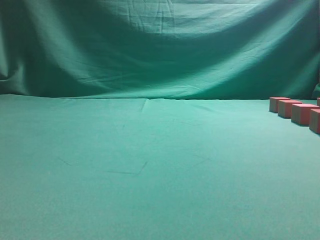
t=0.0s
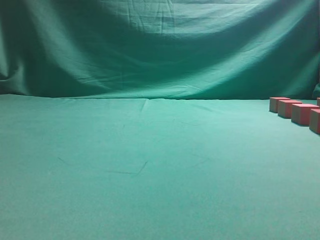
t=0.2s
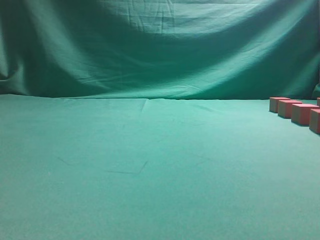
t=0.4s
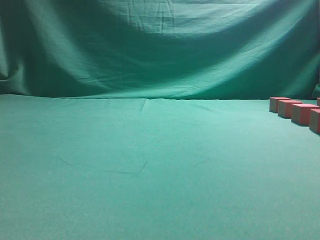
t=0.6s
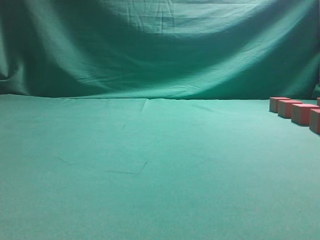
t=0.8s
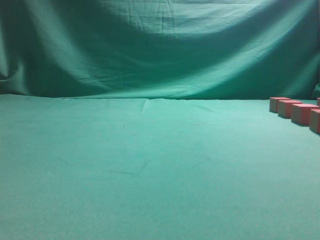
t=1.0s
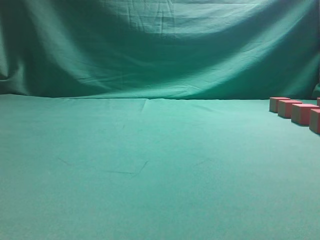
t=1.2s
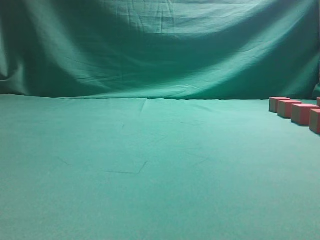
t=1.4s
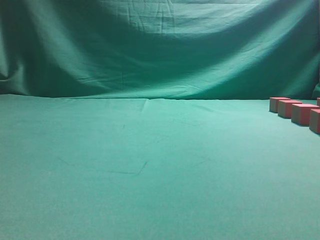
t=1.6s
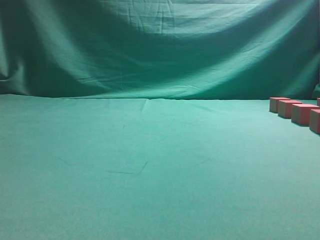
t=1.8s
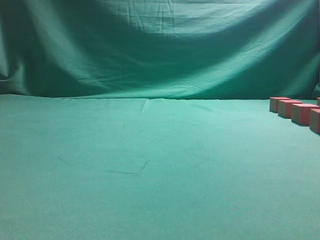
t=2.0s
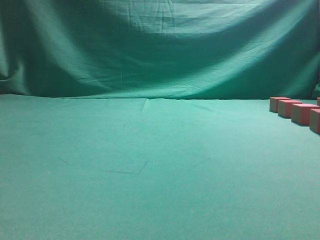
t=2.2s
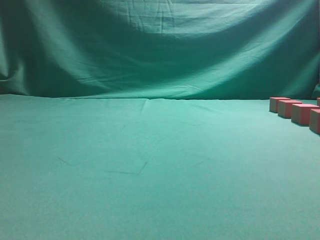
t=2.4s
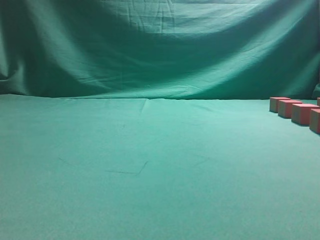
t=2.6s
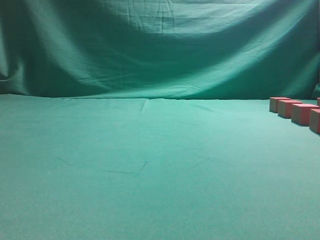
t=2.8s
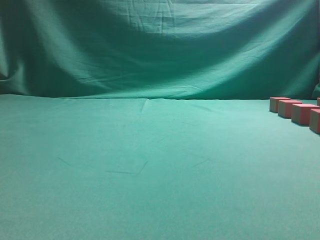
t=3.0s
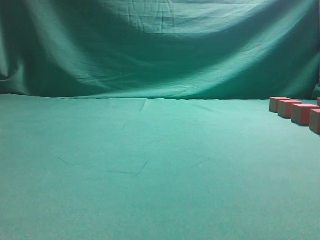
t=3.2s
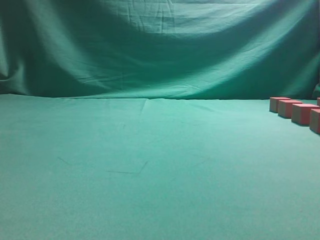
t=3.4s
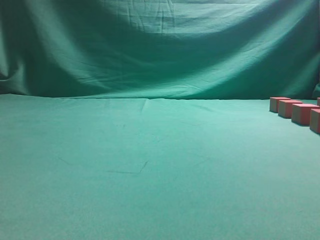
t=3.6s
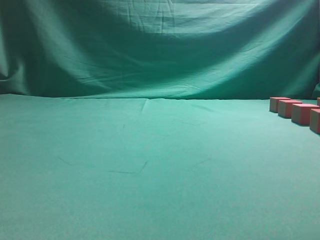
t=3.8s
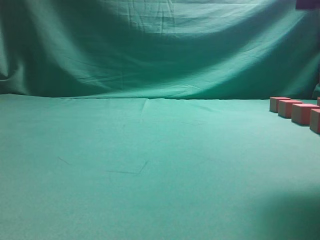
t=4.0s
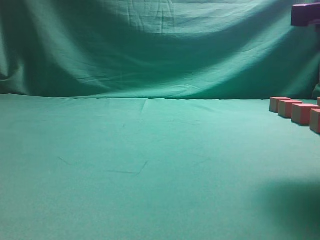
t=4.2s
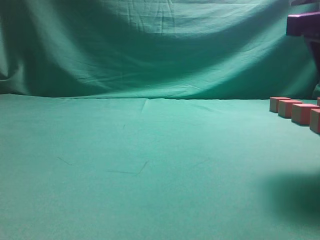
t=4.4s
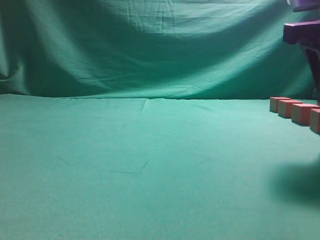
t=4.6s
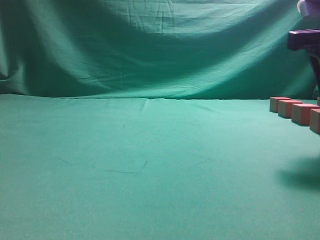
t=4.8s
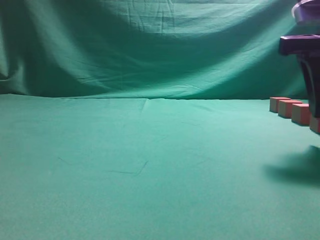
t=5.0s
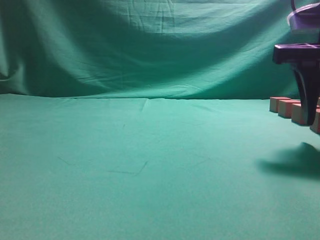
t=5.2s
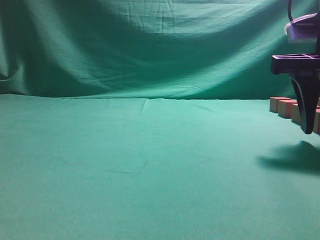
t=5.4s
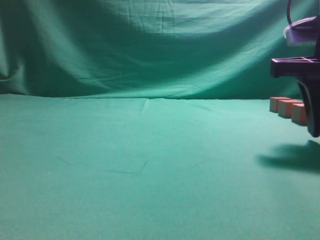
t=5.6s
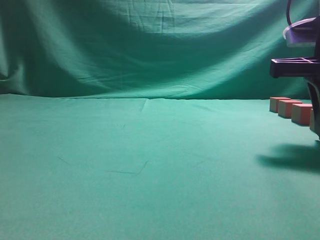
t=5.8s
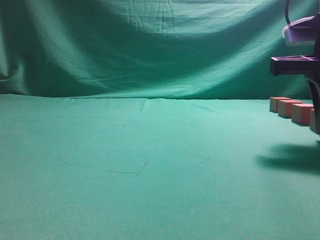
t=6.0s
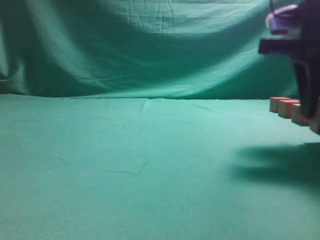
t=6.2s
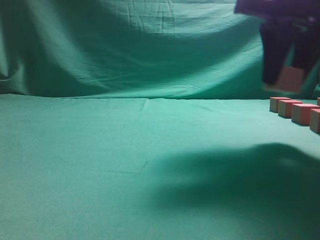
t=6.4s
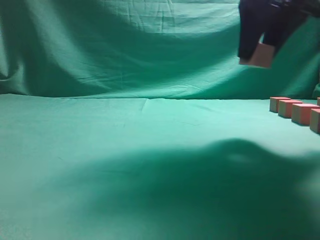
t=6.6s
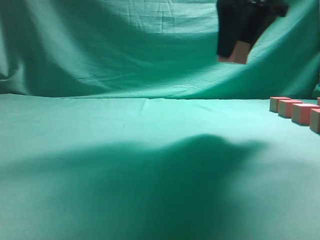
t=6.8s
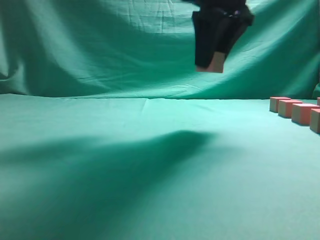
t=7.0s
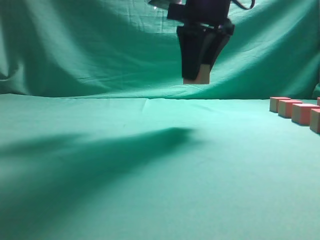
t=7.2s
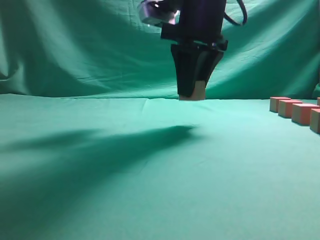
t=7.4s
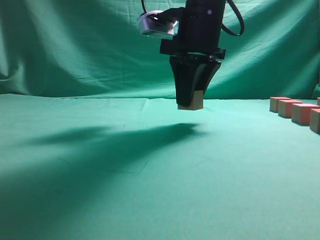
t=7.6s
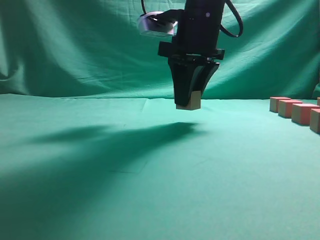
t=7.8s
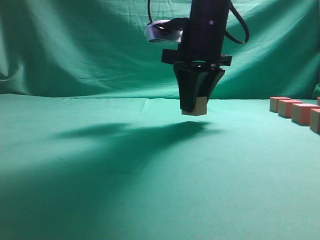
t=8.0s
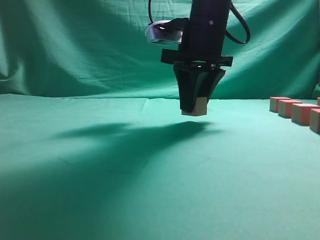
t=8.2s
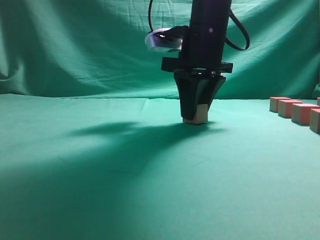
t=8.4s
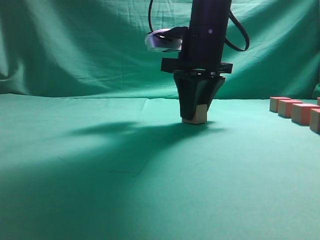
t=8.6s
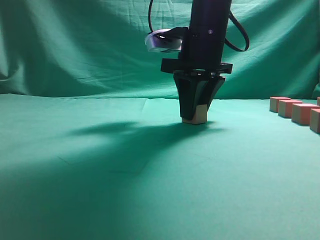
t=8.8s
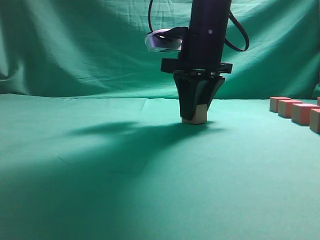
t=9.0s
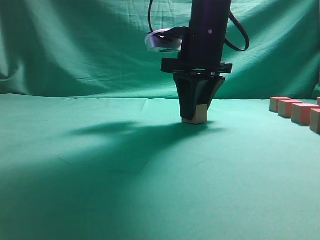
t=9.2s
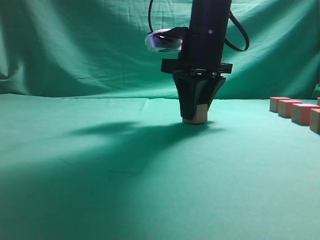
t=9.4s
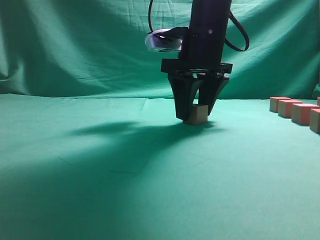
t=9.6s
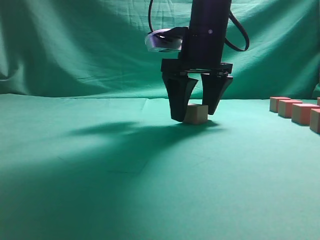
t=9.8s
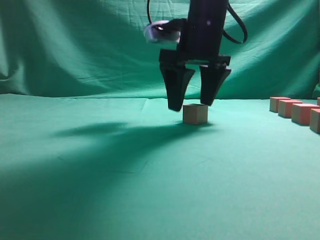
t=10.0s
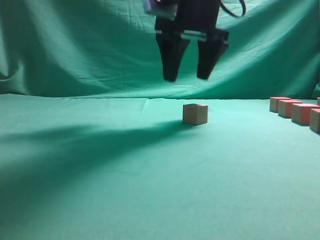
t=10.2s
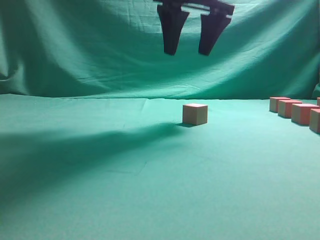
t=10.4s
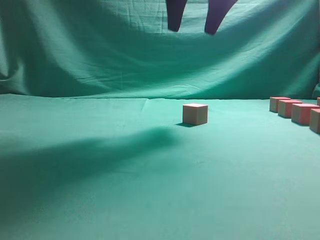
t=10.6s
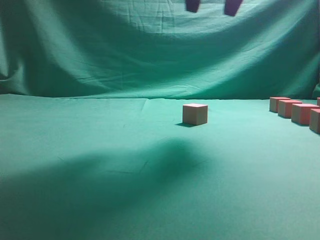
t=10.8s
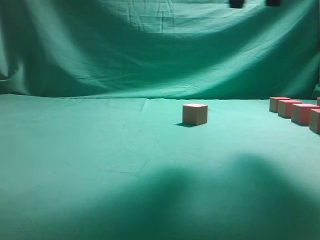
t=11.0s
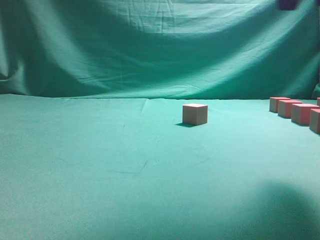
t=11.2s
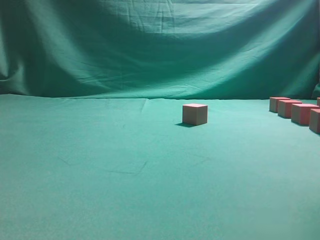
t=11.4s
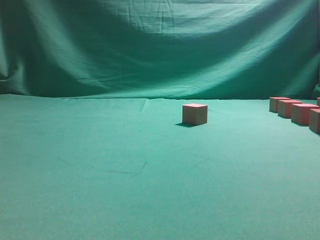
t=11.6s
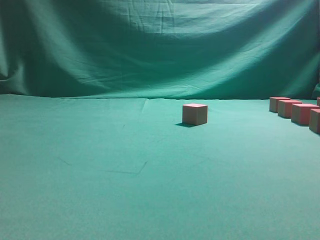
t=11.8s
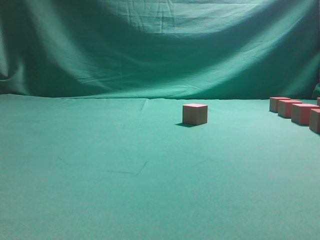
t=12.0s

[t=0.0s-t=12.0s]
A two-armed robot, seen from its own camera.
Task of the whole recording: pick up the multiple cubes in two columns one by one and place them in another position on the table.
Step, t=0.0s to t=6.0s: Pick up the block on the table.
Step, t=6.2s to t=10.4s: Place the block at the correct position to assemble the letter S.
t=3.0s to t=4.4s: The right gripper is displaced forward, downward and to the left by approximately 15 cm, and opens its fingers.
t=4.4s to t=6.0s: The right gripper shifts by some 5 cm, and closes its fingers.
t=6.0s to t=7.6s: The right gripper heads to the left and forward, covering some 20 cm.
t=7.6s to t=9.0s: The grippers move only a little.
t=9.0s to t=10.4s: The right gripper is displaced upward by some 10 cm, and opens.
t=10.4s to t=12.0s: The right gripper goes some 30 cm to the right and backward.

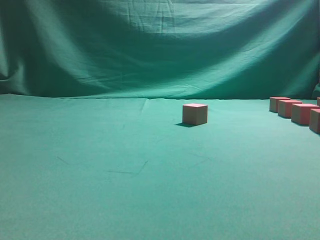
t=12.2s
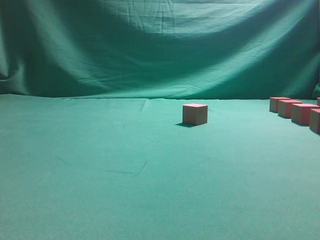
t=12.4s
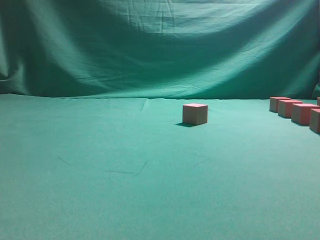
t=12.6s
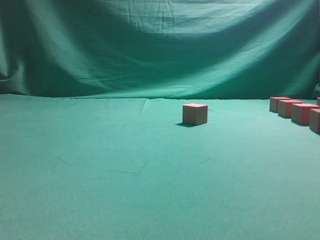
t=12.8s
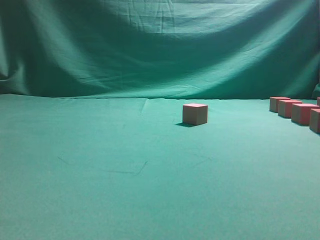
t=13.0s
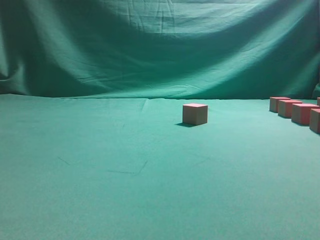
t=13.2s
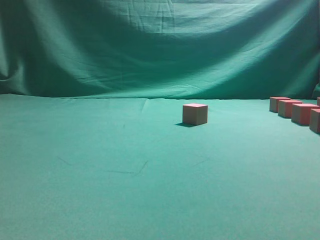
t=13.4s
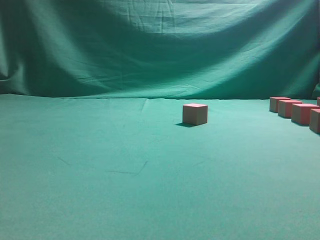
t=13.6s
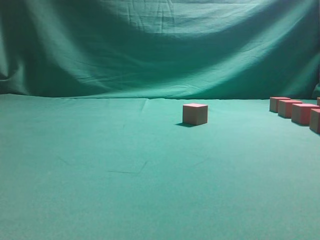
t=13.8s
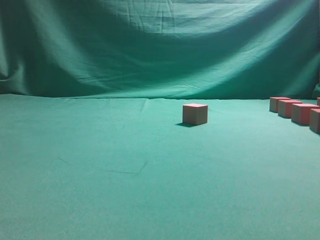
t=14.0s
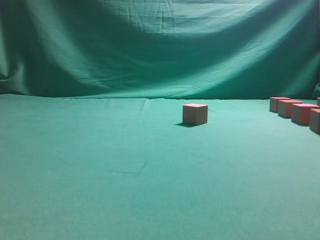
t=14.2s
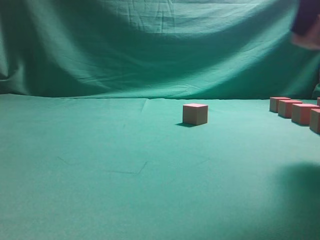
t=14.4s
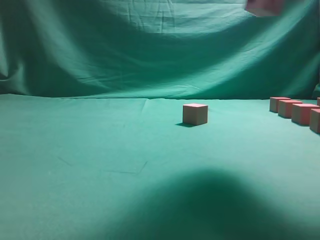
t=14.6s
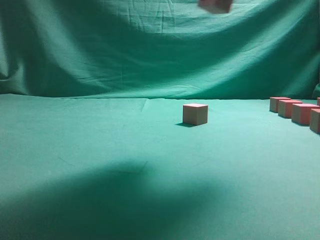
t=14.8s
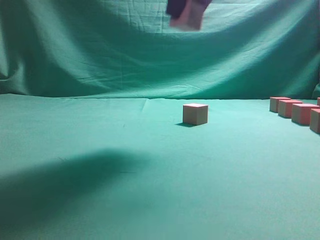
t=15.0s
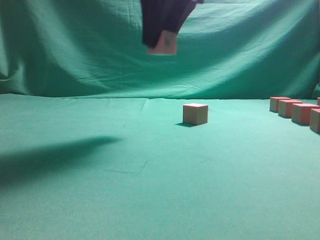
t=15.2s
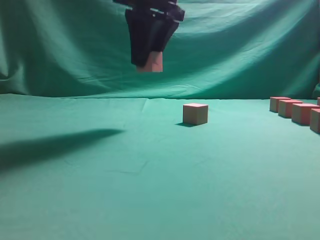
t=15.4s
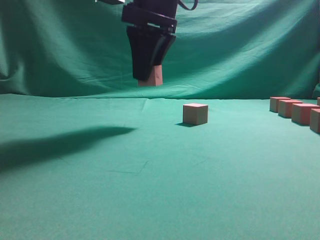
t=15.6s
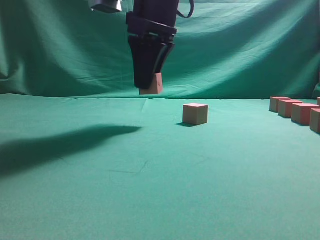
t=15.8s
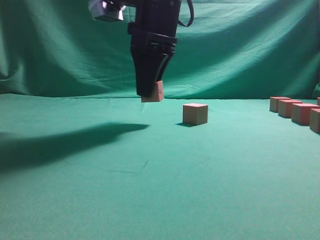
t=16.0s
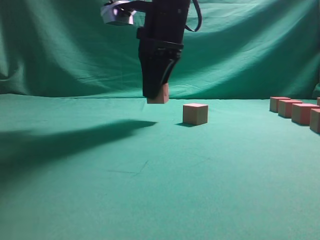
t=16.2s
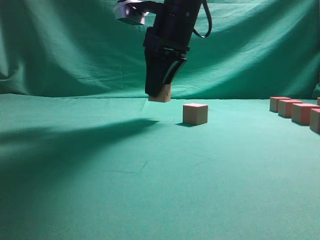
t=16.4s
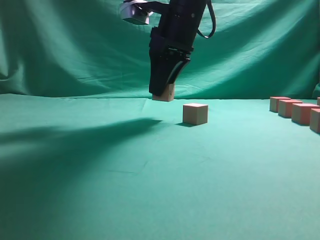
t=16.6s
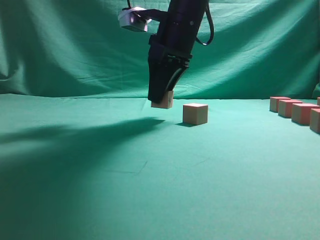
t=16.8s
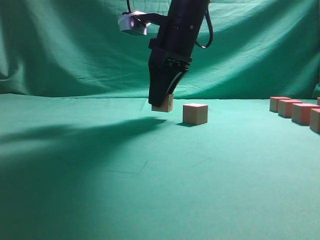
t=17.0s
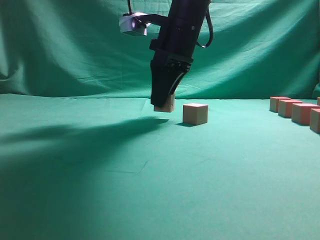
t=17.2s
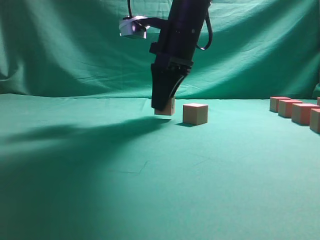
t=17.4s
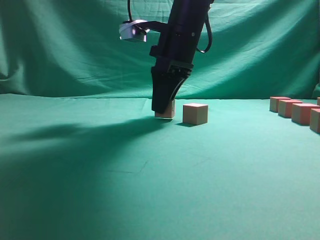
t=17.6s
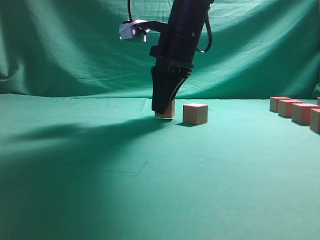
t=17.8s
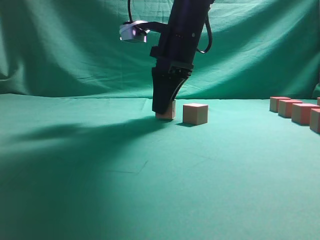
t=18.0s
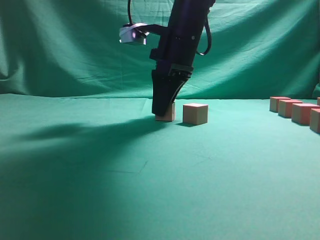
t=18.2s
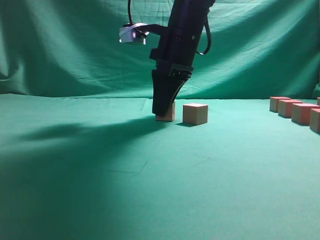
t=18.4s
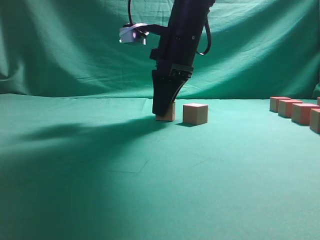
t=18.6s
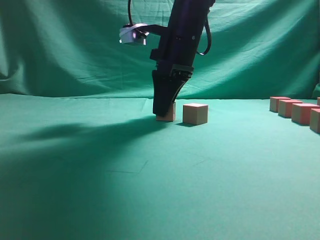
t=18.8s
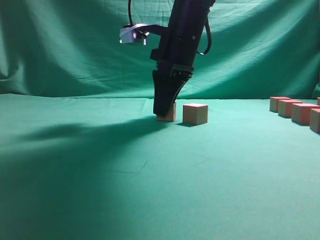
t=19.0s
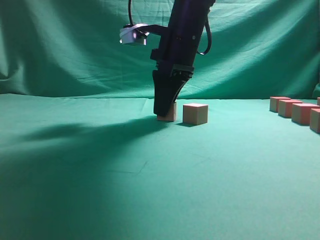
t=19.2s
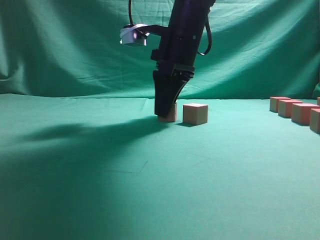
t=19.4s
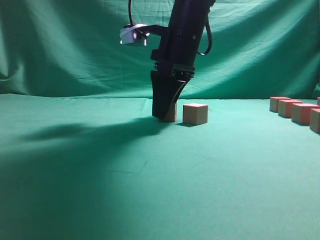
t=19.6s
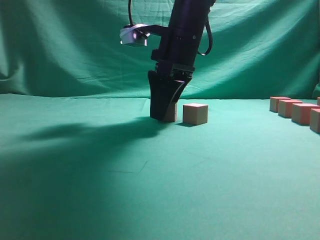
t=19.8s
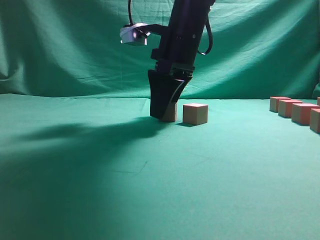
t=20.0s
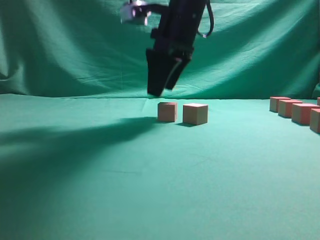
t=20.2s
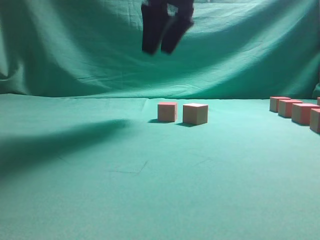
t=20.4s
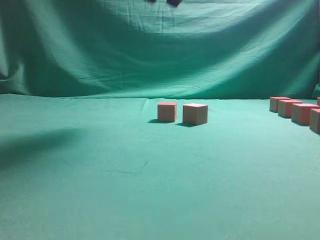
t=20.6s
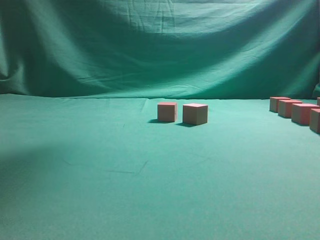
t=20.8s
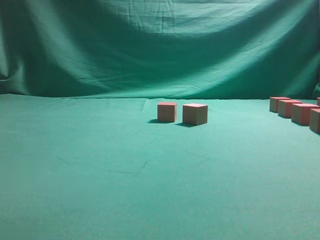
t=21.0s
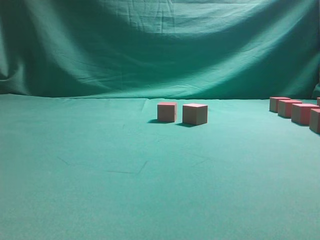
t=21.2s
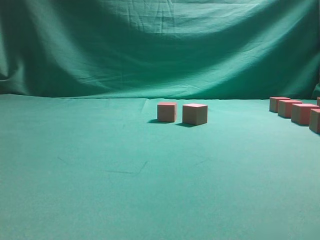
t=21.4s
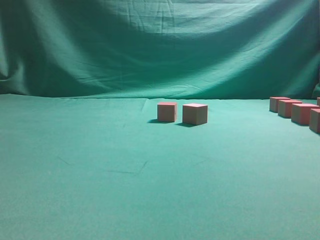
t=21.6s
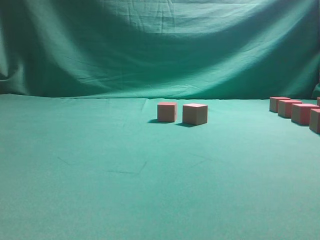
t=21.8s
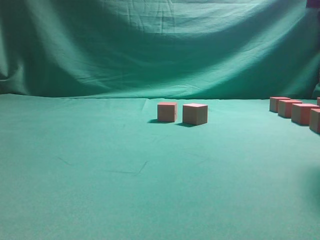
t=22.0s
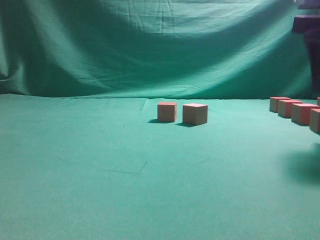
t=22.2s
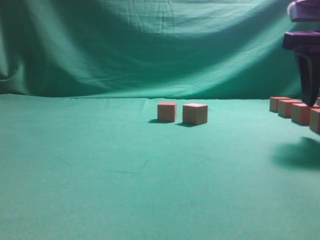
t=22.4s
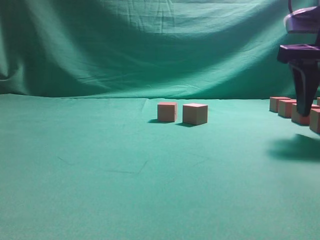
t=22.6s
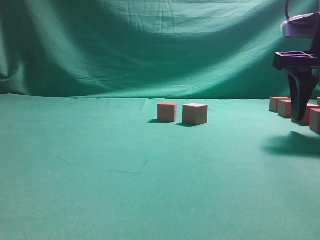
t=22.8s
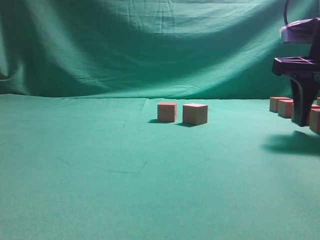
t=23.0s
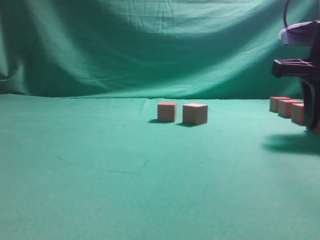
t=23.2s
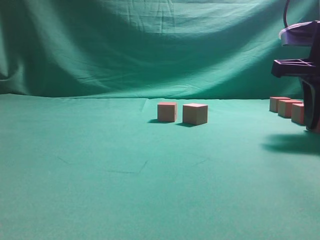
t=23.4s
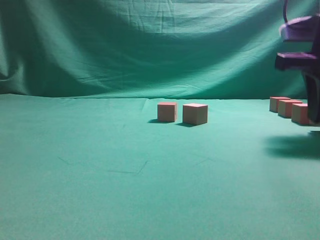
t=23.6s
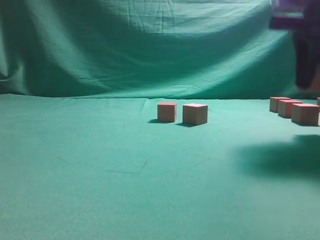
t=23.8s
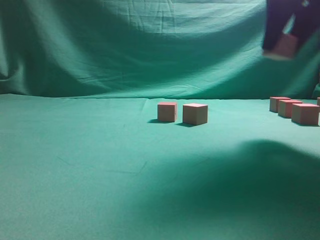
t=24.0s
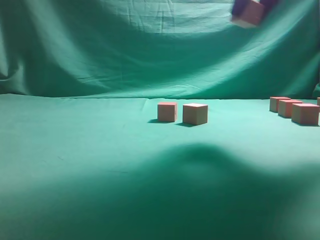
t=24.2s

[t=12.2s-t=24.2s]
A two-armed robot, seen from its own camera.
Task of the whole recording: pick up the multiple cubes in two columns one by one and place them in another position on the table.
Step, t=14.4s to t=20.2s: Place the block at the correct position to assemble the letter S.
Step, t=20.4s to t=23.6s: Pick up the block on the table.
t=13.8s to t=15.2s: The right gripper is displaced to the left by some 30 cm.
t=15.2s to t=16.6s: The right gripper shifts some 10 cm downward and forward.
t=16.6s to t=18.2s: There are only small adjustments of the grippers.
t=18.2s to t=19.8s: The right gripper opens up.
t=19.8s to t=21.2s: The right gripper goes approximately 35 cm upward, backward and to the right.
t=21.2s to t=22.6s: The right gripper is displaced downward by about 25 cm.
t=22.6s to t=24.2s: The right gripper goes approximately 15 cm upward and to the left, and closes its fingers.
